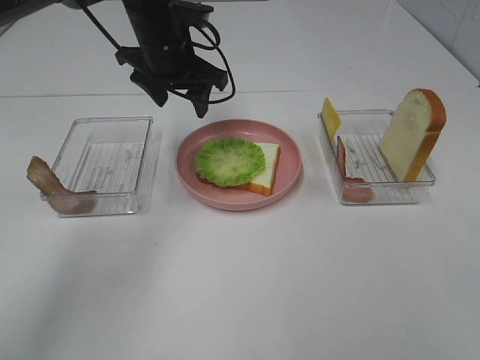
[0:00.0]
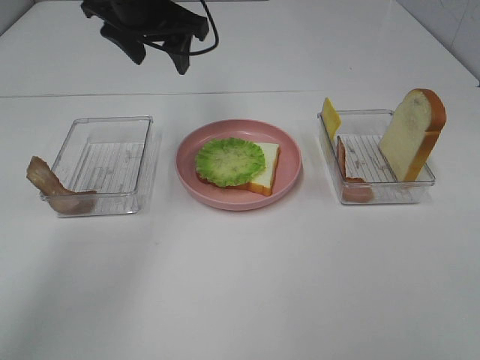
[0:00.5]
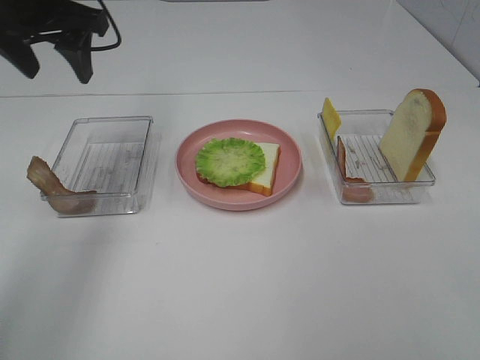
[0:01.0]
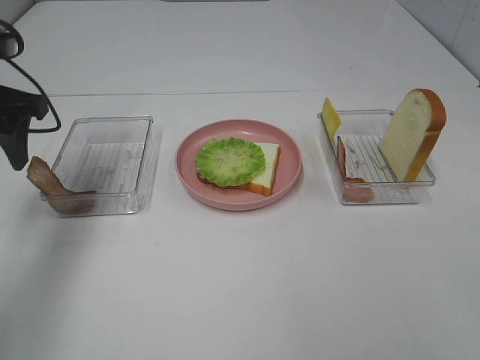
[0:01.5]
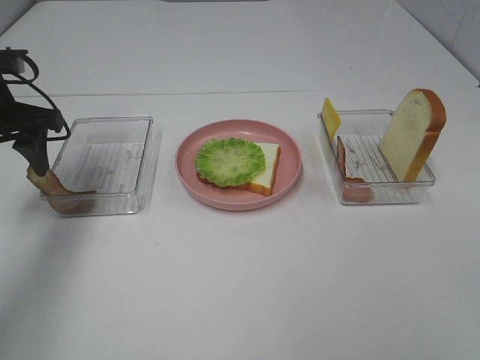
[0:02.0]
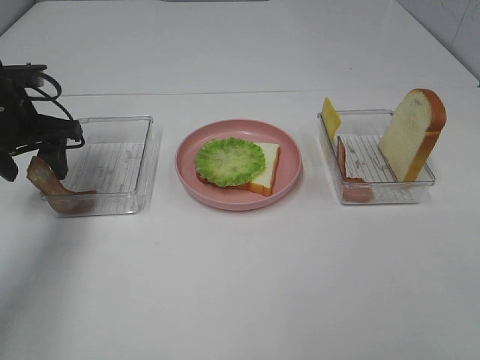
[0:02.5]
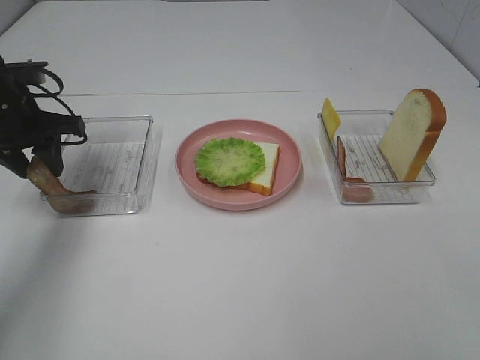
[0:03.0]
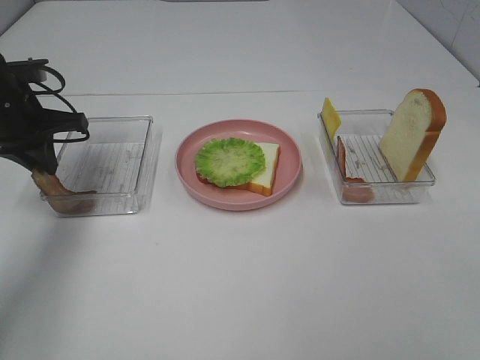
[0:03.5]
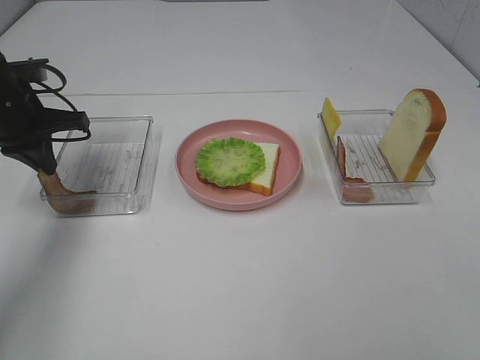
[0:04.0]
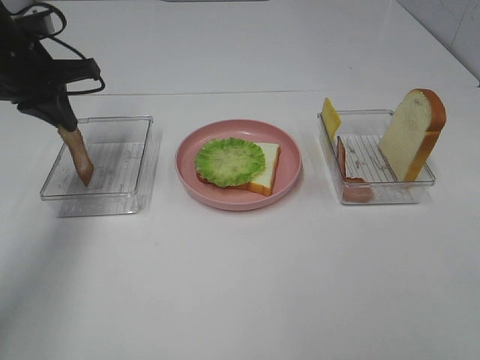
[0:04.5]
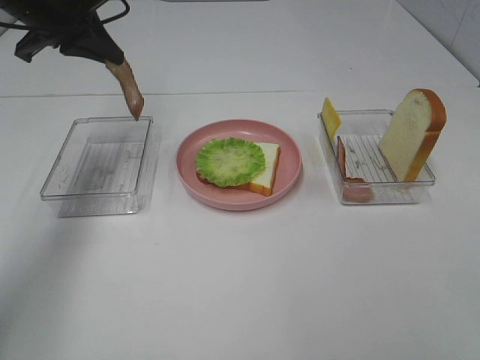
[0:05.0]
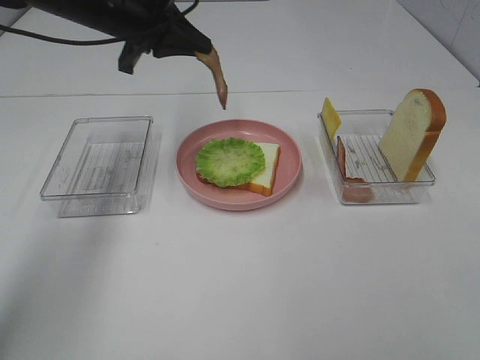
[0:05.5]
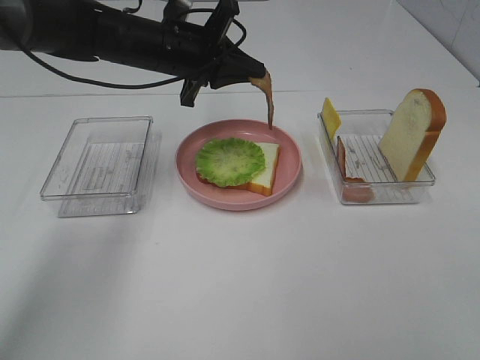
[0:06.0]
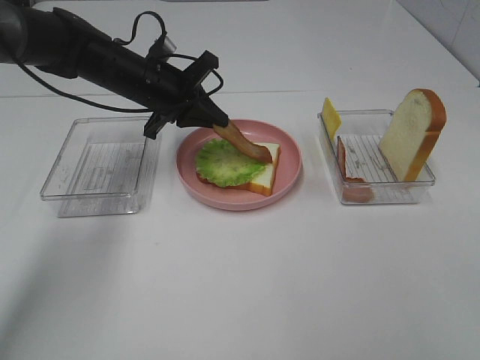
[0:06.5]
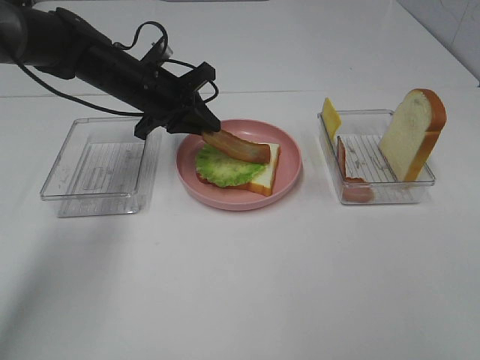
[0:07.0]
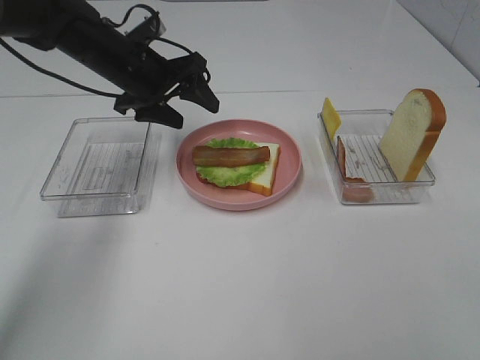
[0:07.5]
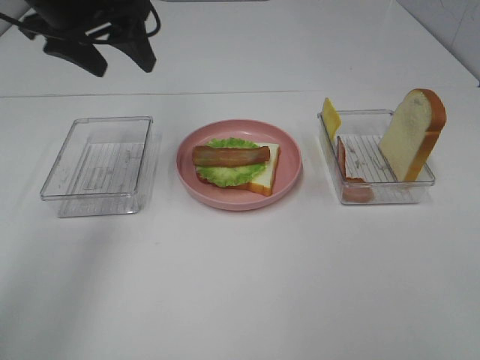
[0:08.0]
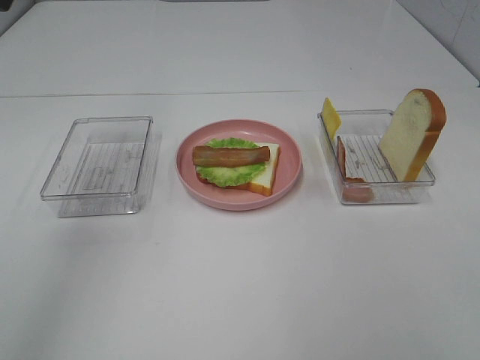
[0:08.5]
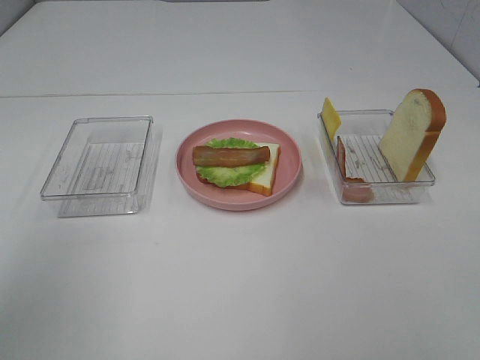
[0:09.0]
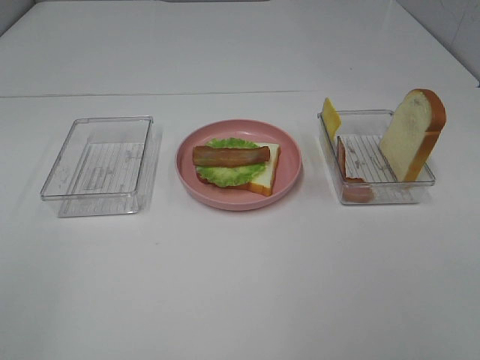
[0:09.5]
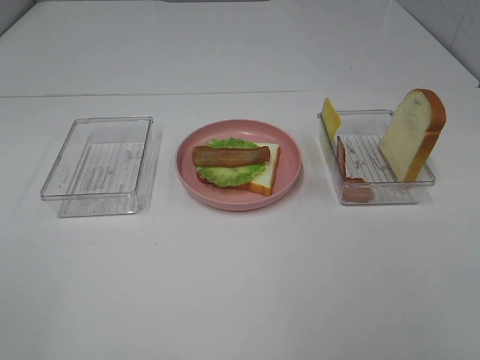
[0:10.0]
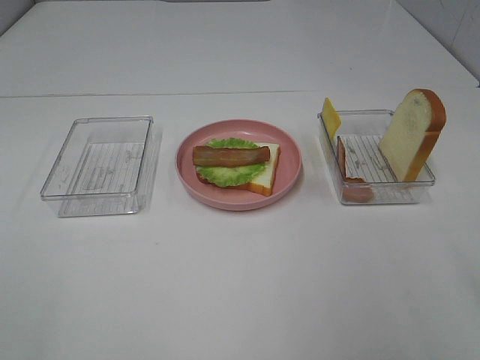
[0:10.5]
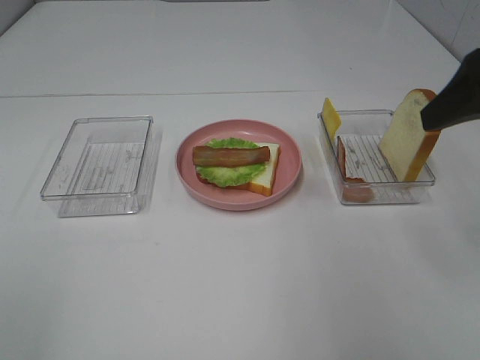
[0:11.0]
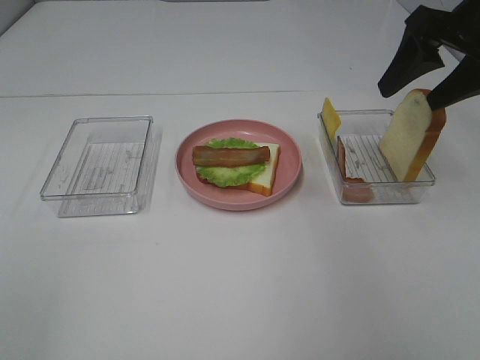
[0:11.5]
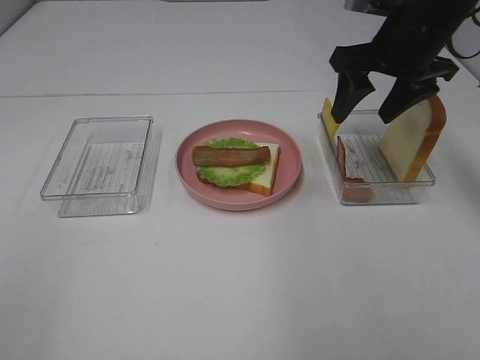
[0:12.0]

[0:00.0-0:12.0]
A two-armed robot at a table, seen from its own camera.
Task of the whole recording: Make sandwiches.
Step, 0:00.0 to 0:03.5: Left hand:grab the bacon.
Step, 0:04.0 to 0:07.5: Left hand:place bacon on lettuce slice.
0:00.0 to 0:02.0: The left gripper travels to the left and backward by about 20 cm.
0:02.0 to 0:04.0: The left gripper closes up.
0:04.0 to 0:06.0: The left gripper heads to the right, covering approximately 20 cm.
0:06.0 to 0:08.0: The left gripper moves upward, to the left and backward, approximately 15 cm, and opens.
0:08.0 to 0:10.0: The left gripper travels backward by roughly 40 cm.
0:10.0 to 0:12.0: The right gripper shifts approximately 40 cm forward.

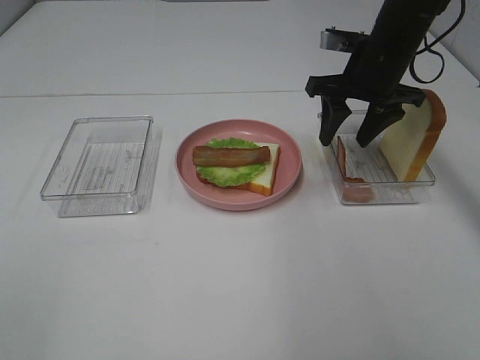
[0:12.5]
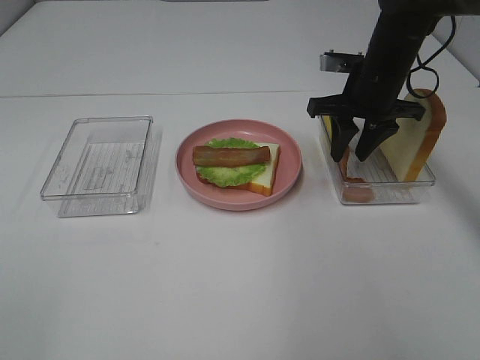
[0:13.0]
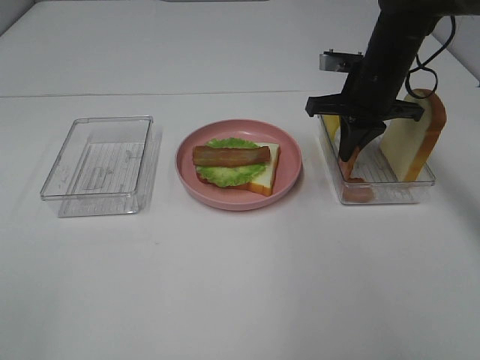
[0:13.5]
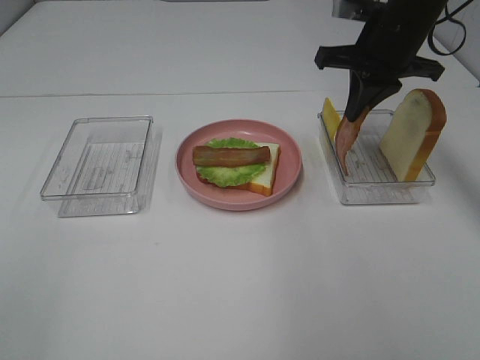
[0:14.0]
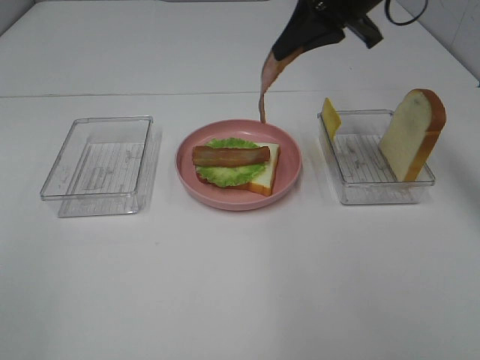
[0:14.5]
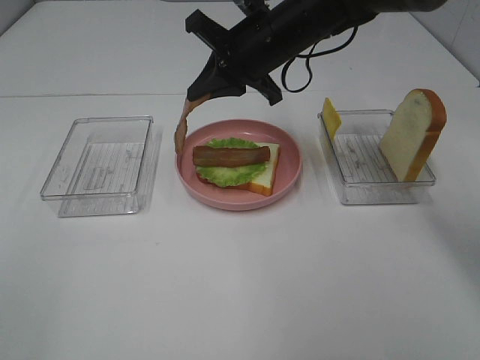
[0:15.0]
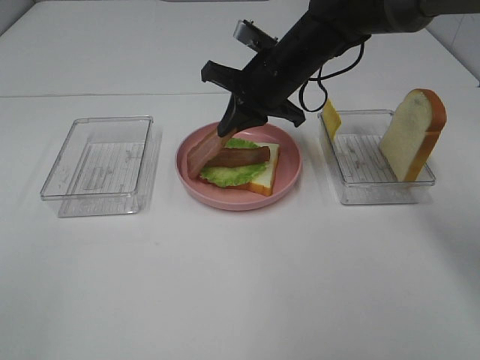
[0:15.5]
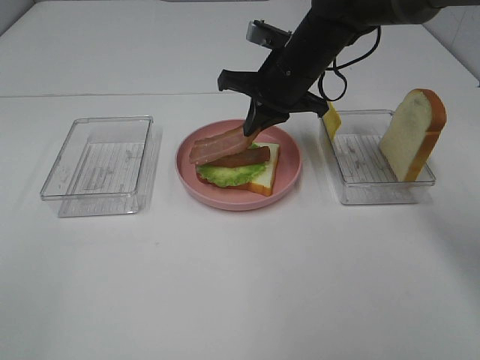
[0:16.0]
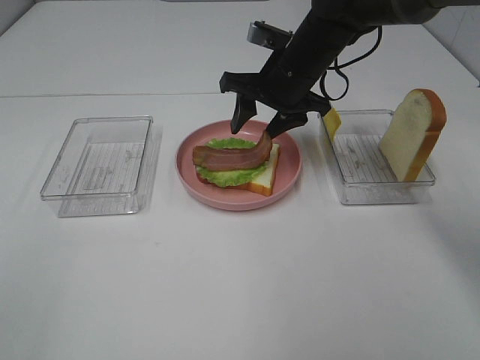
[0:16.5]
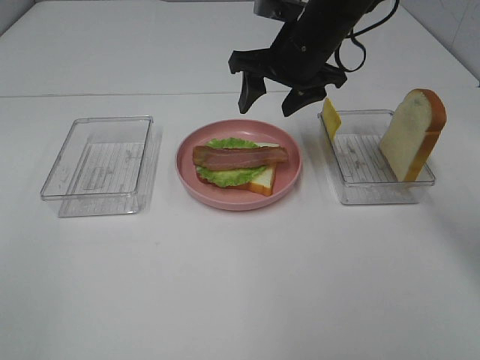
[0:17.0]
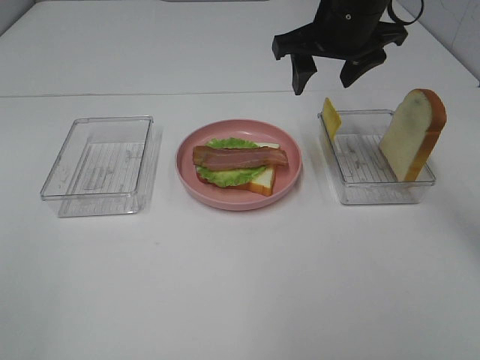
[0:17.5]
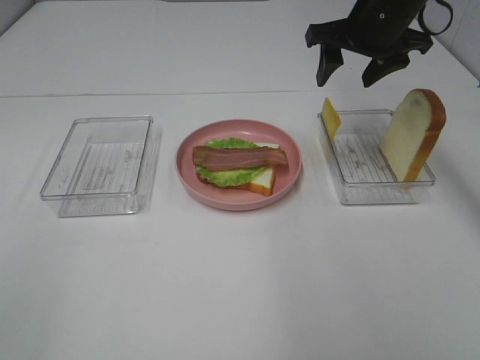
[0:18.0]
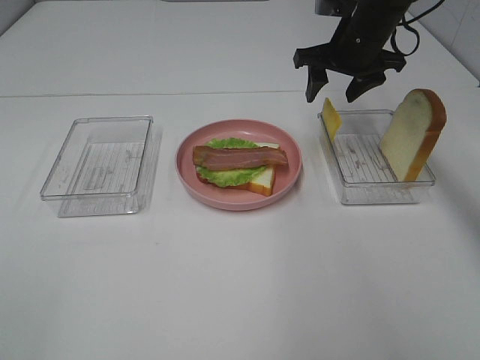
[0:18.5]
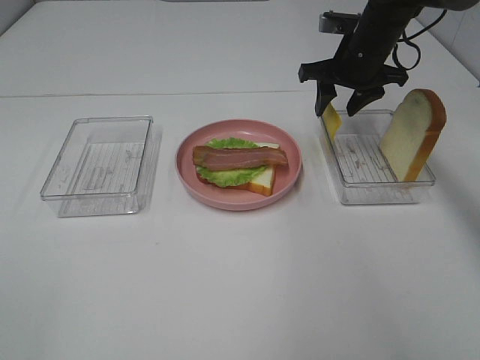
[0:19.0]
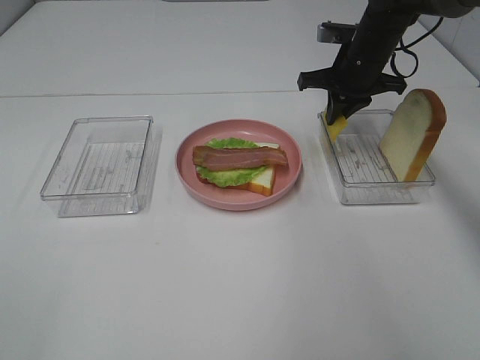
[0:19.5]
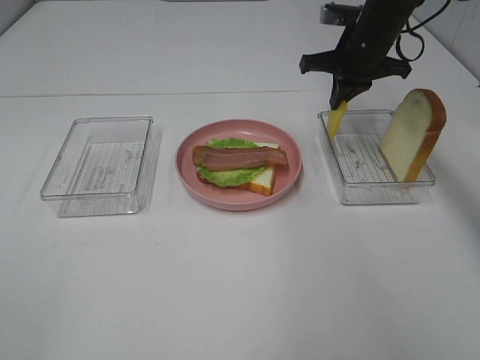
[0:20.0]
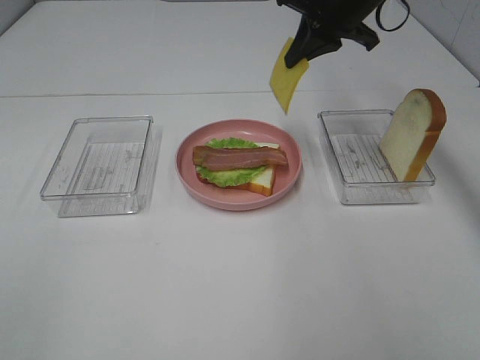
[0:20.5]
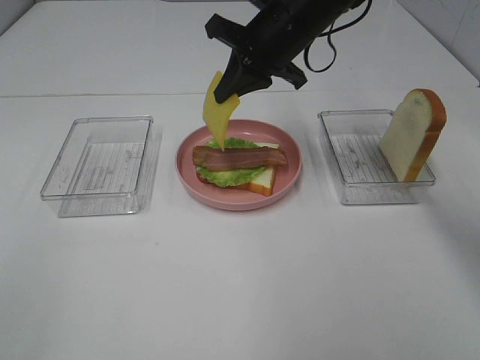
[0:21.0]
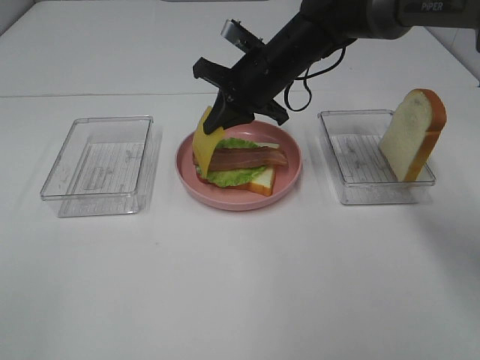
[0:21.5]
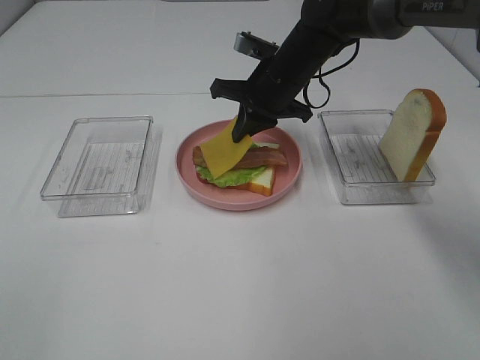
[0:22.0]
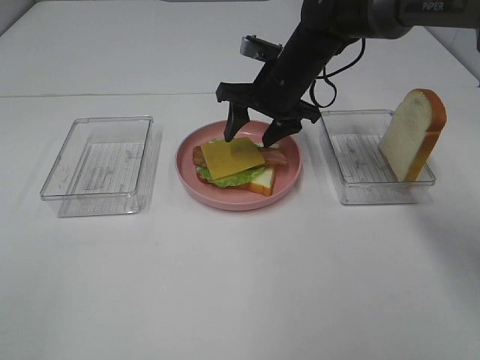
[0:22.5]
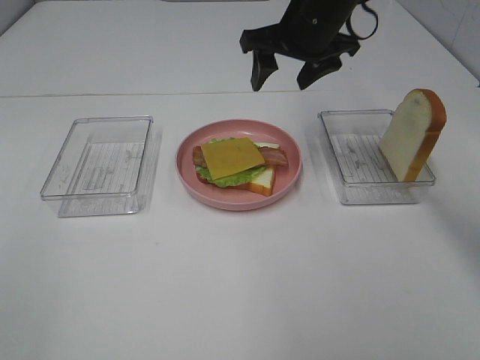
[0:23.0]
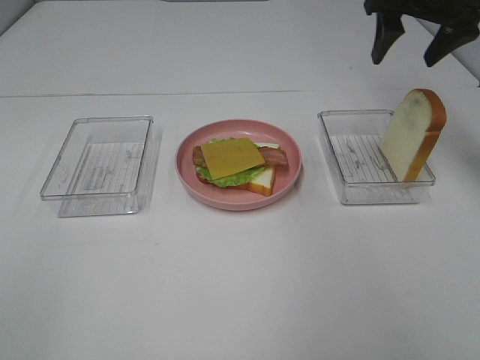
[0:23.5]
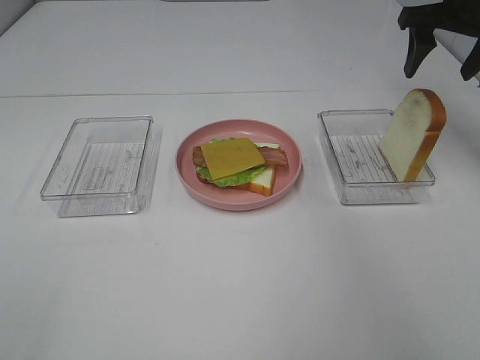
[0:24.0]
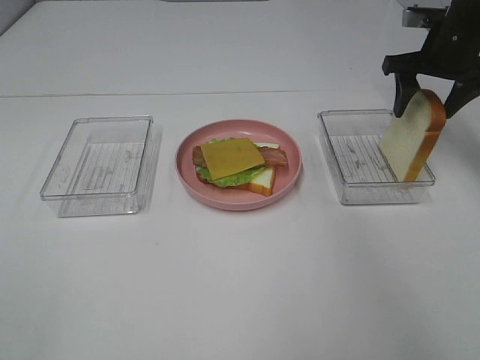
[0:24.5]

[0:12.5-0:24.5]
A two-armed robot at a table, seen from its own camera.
Task of the whole recording: Make sandwiches.
Step, 0:13.5 to 0:16.5: Right hand:place bacon on bacon.
0:12.5 to 0:14.5: The right gripper travels upward by some 10 cm, and closes up.
0:14.5 to 0:16.5: The right gripper is displaced downward and to the left by roughly 15 cm, and opens its fingers.
0:16.5 to 0:18.5: The right gripper shifts roughly 10 cm to the right and forward.
0:18.5 to 0:20.5: The right gripper moves upward, about 5 cm, and closes its fingers.
0:20.5 to 0:22.5: The right gripper heads downward and to the left, covering some 15 cm, and opens its fingers.
0:22.5 to 0:24.5: The right gripper heads to the right, covering some 20 cm.

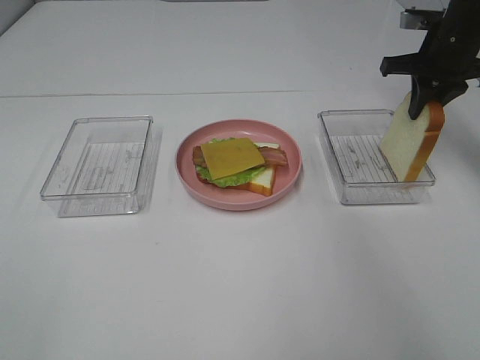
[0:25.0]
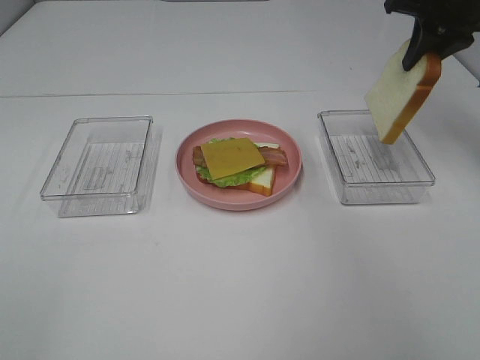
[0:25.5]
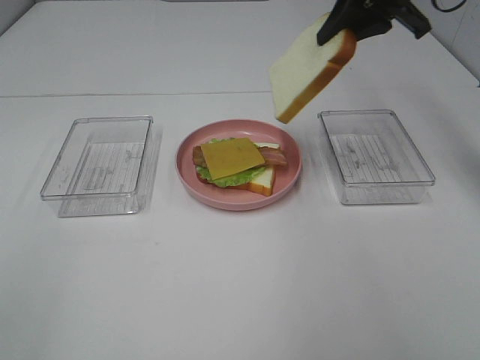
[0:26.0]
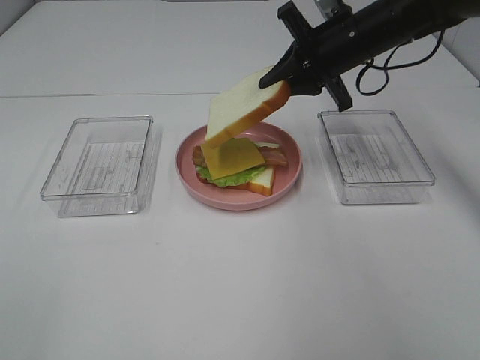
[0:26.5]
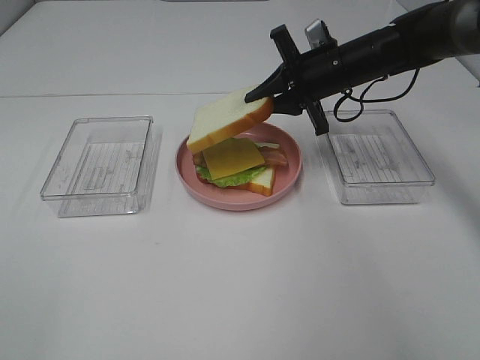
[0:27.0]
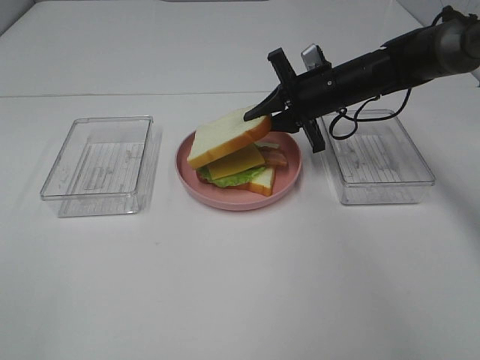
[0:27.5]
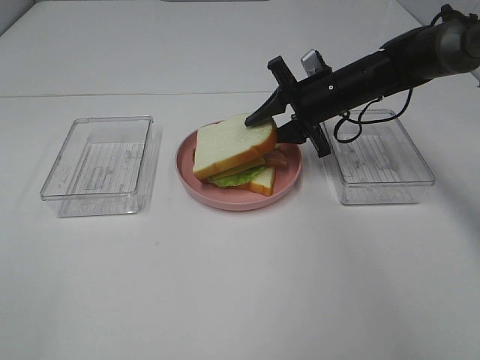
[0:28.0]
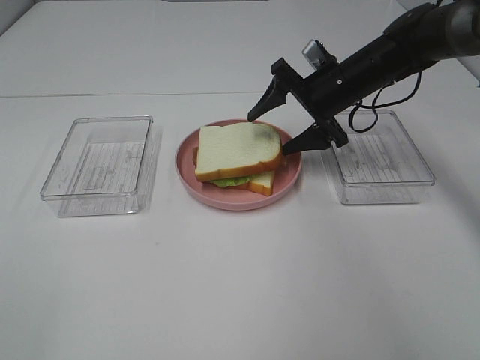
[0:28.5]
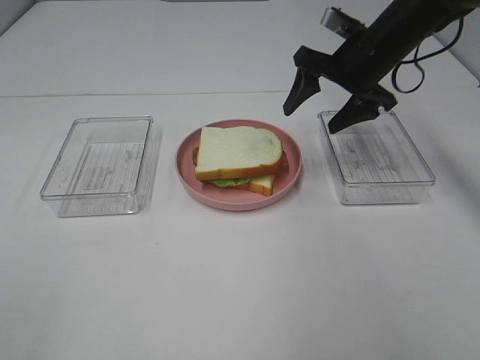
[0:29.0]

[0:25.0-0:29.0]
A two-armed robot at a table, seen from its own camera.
Task of the whole recording: Make sandwiches.
Step, 0:25.5 to 0:28.5: Right hand:place the bread slice on the cheese slice.
0:25.0 to 0:27.0: The right gripper goes some 15 cm to the left and downward.
0:27.0 to 0:29.0: The right gripper heads upward, covering approximately 5 cm, and opens its fingers.
